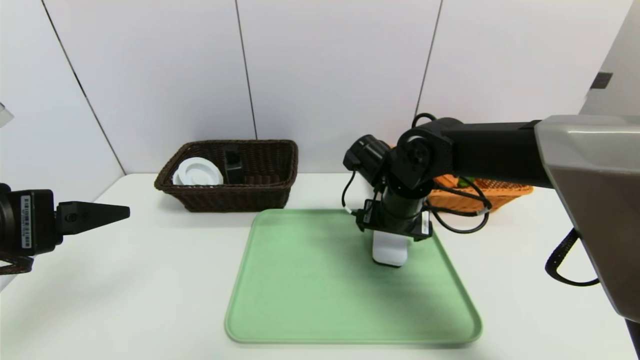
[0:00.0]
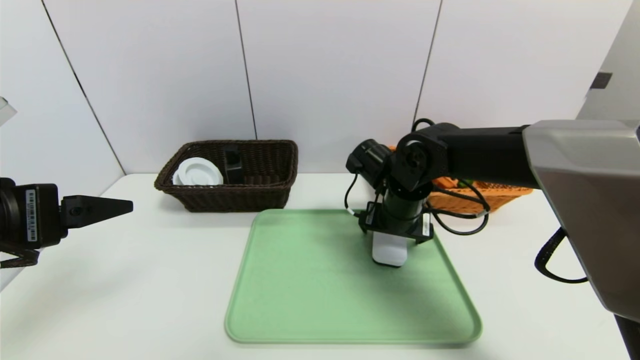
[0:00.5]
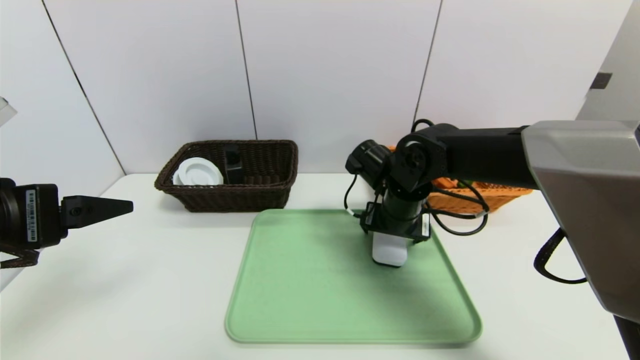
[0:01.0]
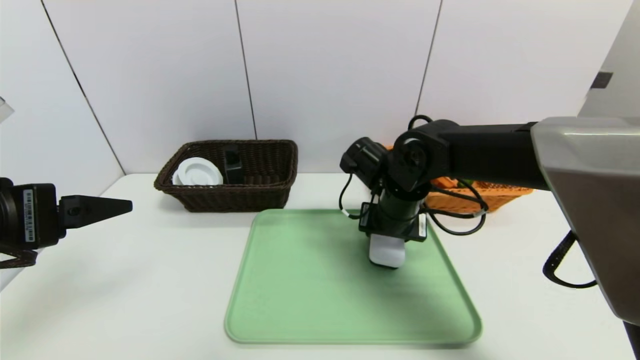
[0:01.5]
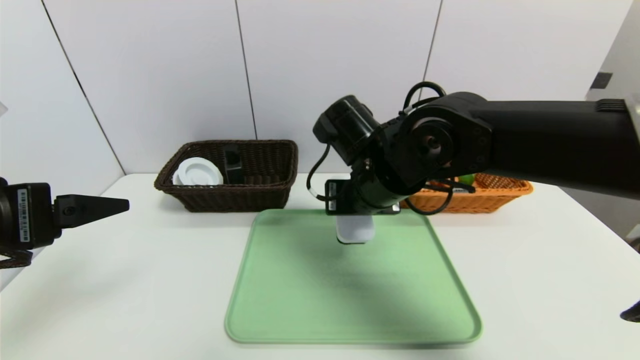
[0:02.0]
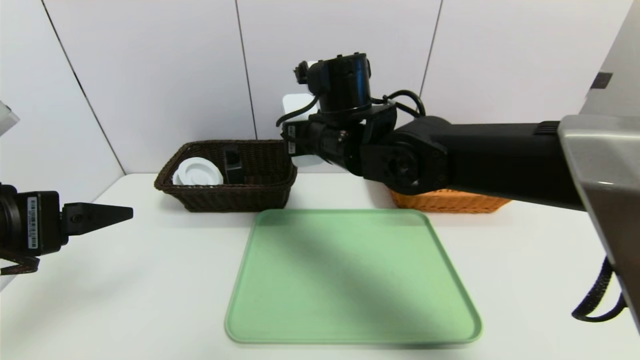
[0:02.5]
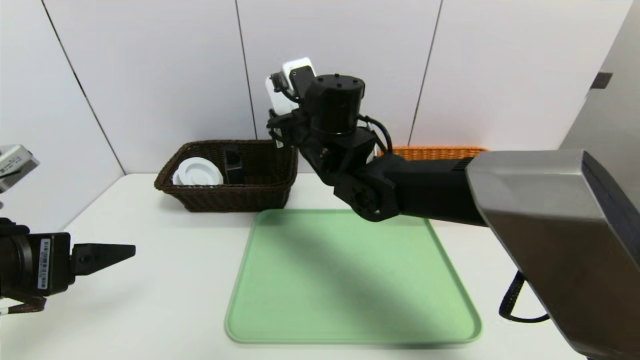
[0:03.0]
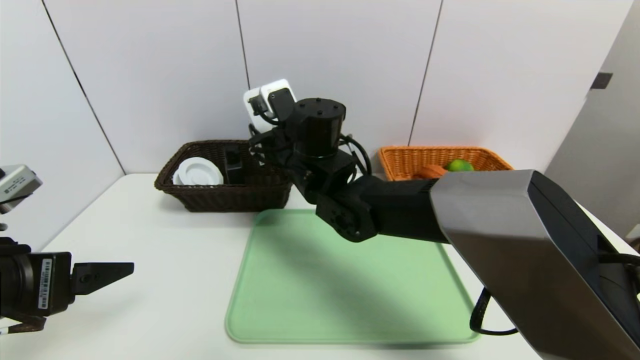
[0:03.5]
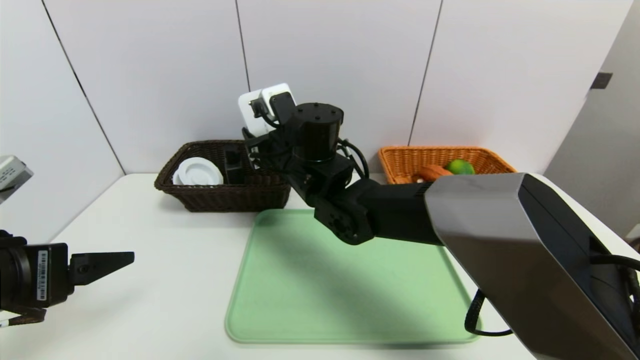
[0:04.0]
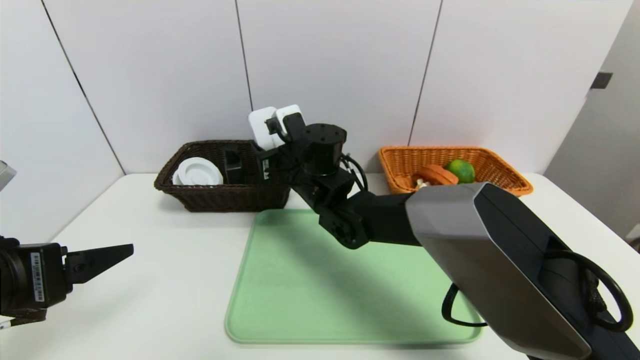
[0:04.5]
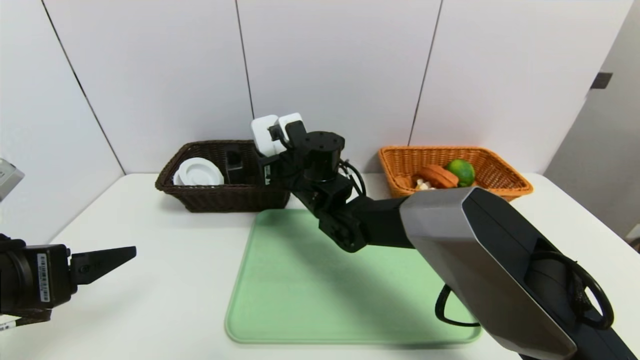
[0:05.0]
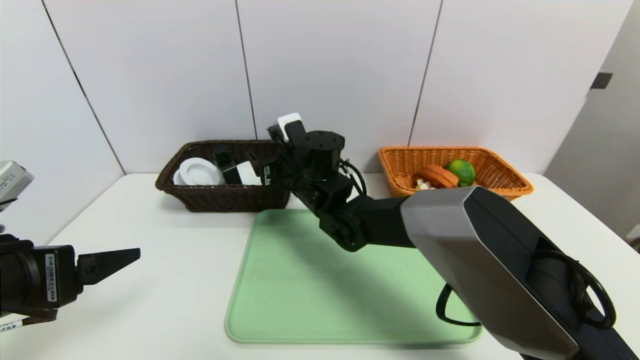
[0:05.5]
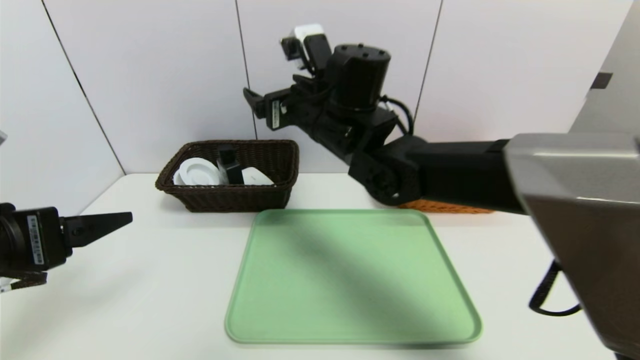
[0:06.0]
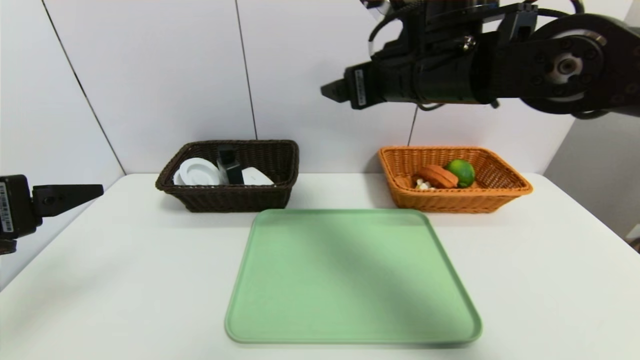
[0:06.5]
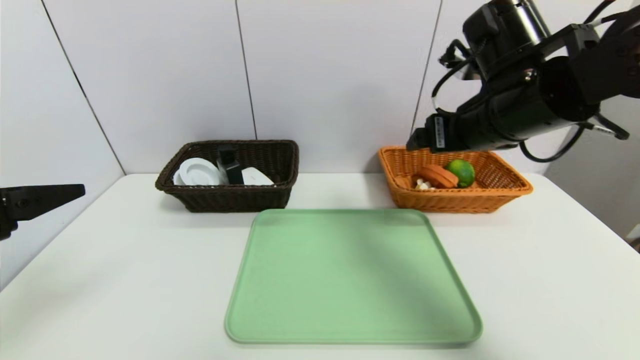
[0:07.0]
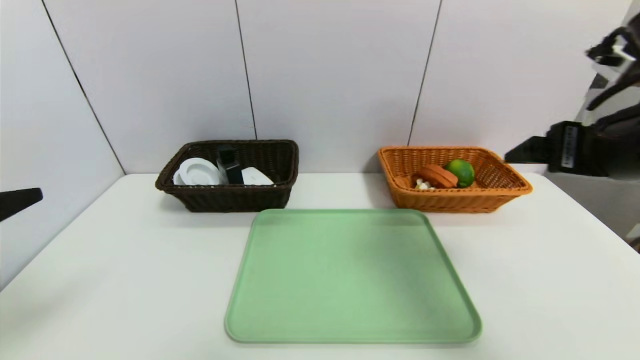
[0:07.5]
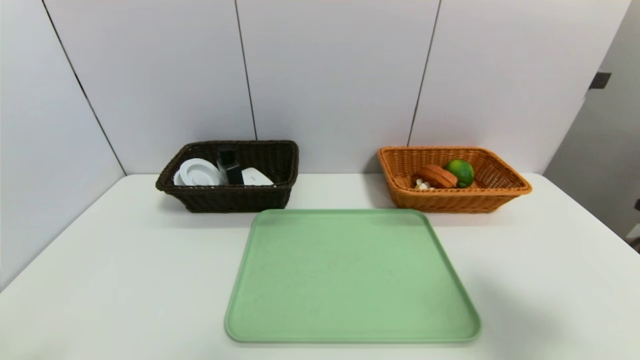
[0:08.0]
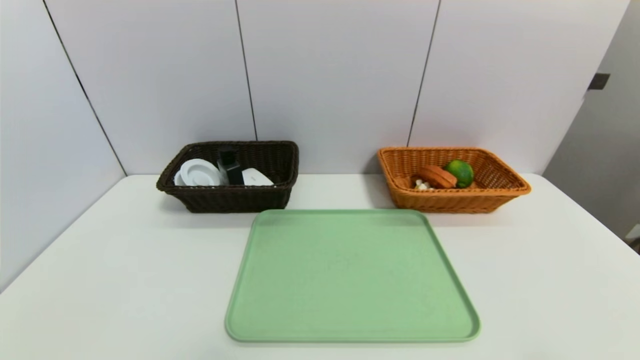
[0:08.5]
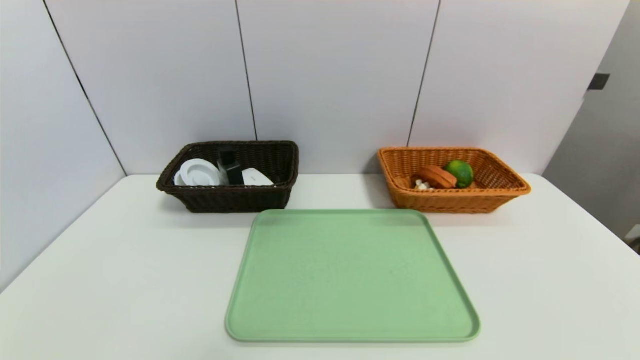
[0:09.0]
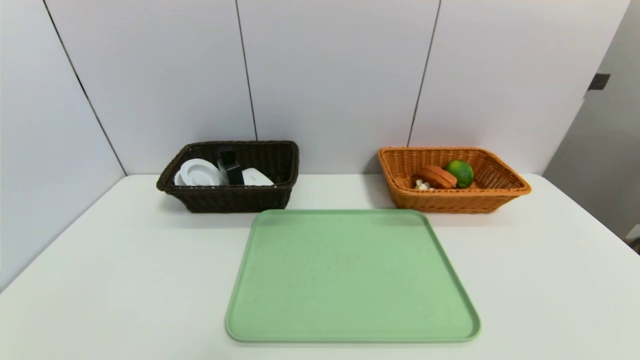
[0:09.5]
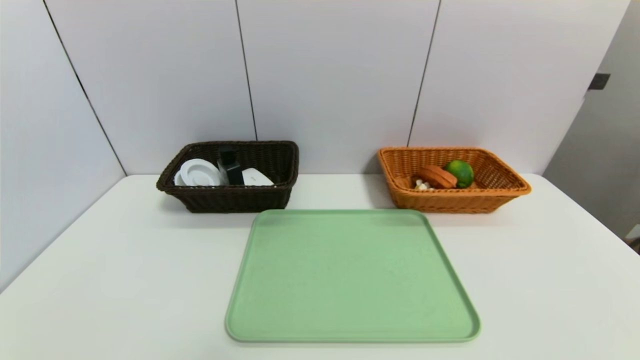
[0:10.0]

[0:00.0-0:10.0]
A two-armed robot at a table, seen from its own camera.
Task of the whole recording: place the food in the right basket with the right gripper, and place the non food items in the left basket with the left gripper.
Step, 0:00.0 to 0:06.0: Grasp the white eraser and put it in the left basket.
0:00.0 to 0:02.0: The right gripper goes roughly 5 cm upward, and closes its fingers.
0:02.0 to 0:04.0: The right gripper moves to the left and forward, roughly 10 cm.
0:04.0 to 0:06.0: The right gripper is displaced upward by roughly 5 cm, and opens up.
0:06.0 to 0:08.0: The left gripper shifts roughly 15 cm backward; the right gripper is displaced to the right and backward by roughly 40 cm.
0:08.0 to 0:10.0: The right gripper travels downward and backward by about 25 cm.
